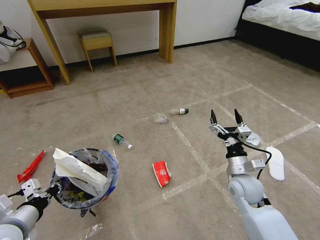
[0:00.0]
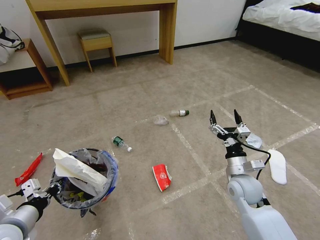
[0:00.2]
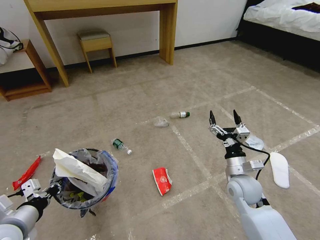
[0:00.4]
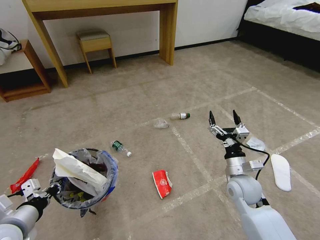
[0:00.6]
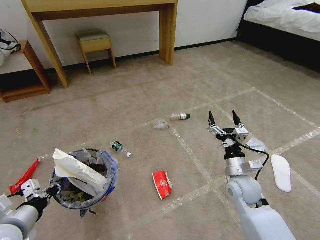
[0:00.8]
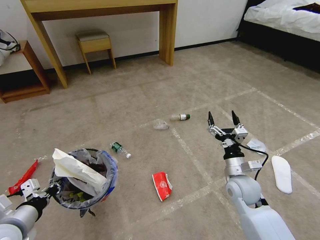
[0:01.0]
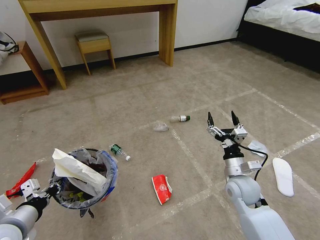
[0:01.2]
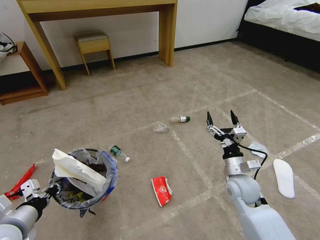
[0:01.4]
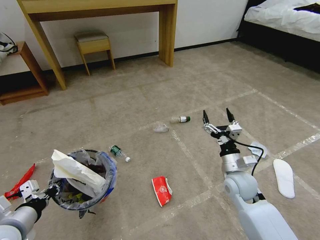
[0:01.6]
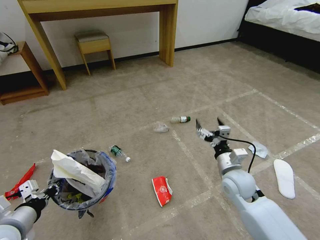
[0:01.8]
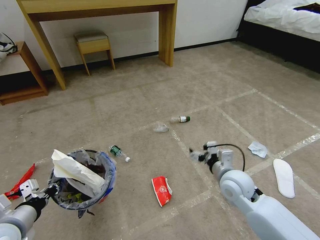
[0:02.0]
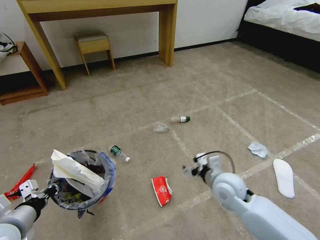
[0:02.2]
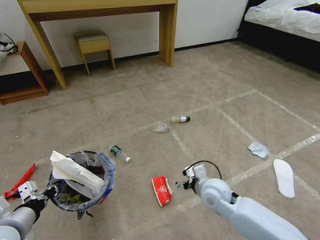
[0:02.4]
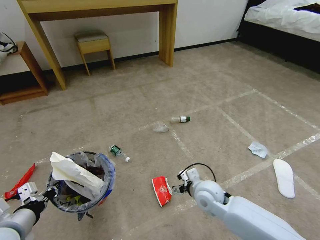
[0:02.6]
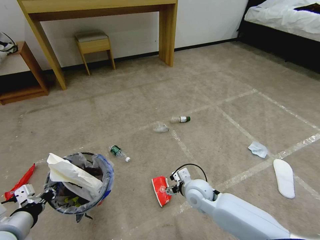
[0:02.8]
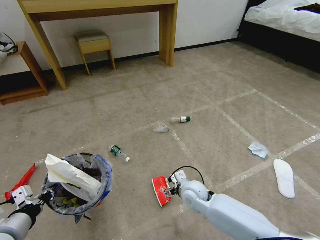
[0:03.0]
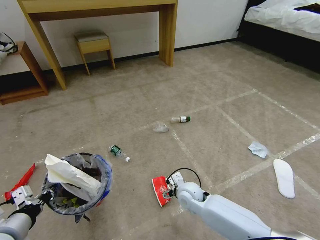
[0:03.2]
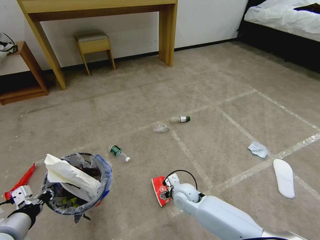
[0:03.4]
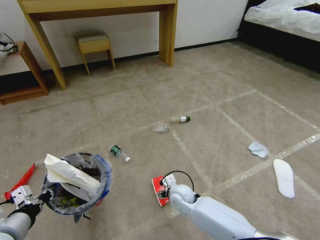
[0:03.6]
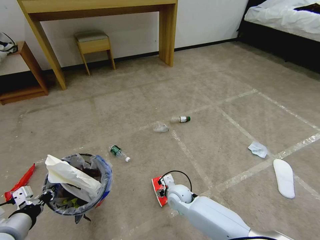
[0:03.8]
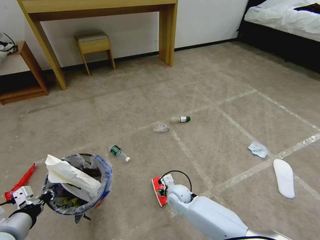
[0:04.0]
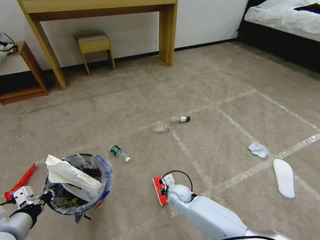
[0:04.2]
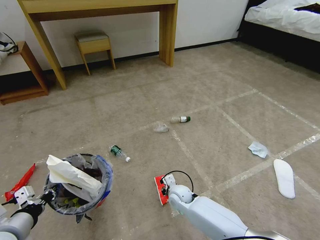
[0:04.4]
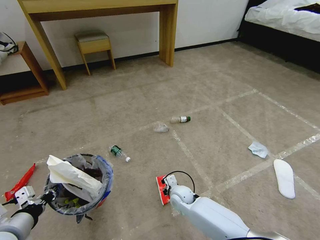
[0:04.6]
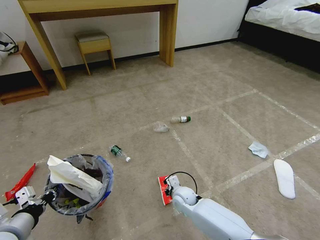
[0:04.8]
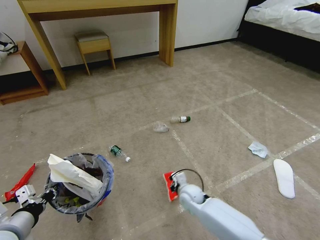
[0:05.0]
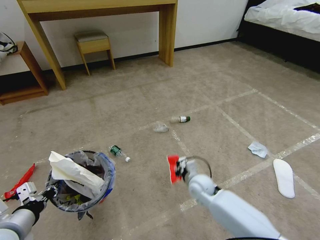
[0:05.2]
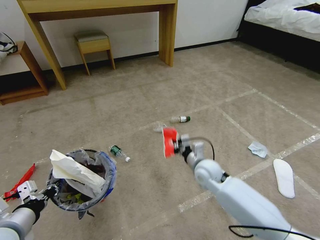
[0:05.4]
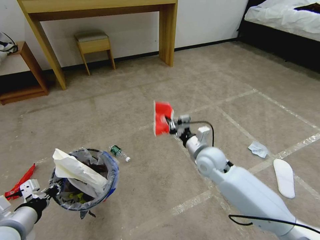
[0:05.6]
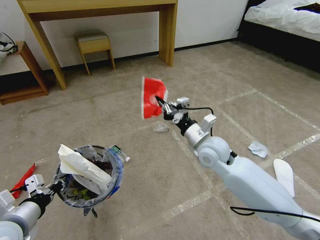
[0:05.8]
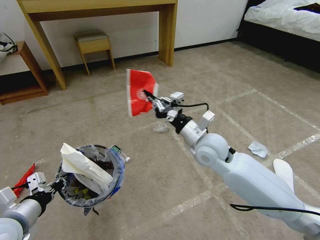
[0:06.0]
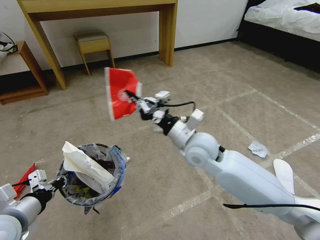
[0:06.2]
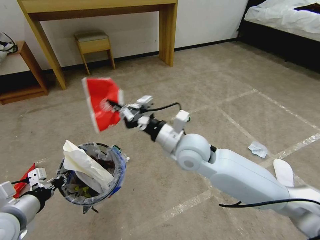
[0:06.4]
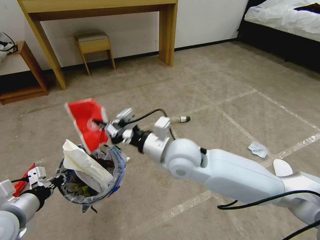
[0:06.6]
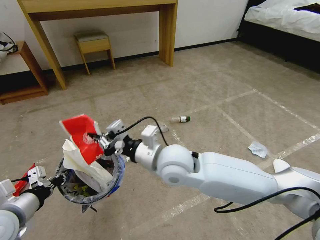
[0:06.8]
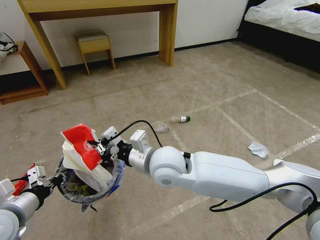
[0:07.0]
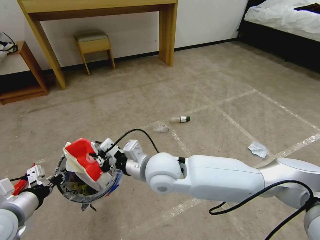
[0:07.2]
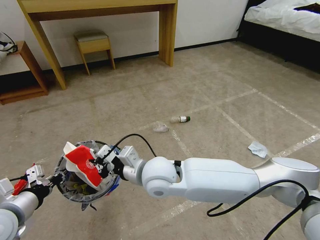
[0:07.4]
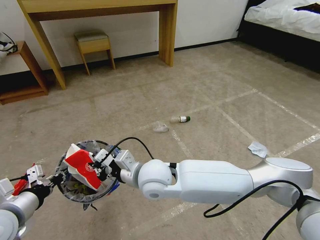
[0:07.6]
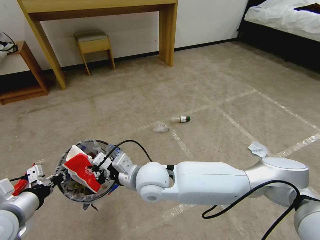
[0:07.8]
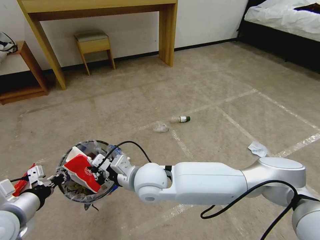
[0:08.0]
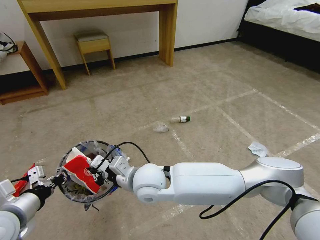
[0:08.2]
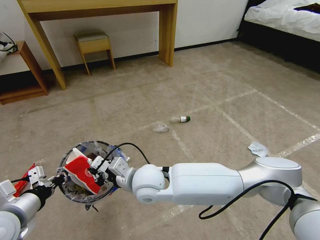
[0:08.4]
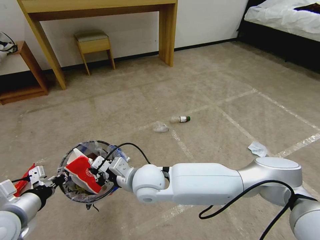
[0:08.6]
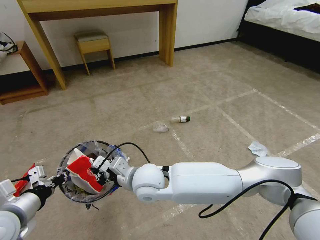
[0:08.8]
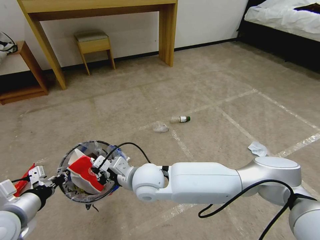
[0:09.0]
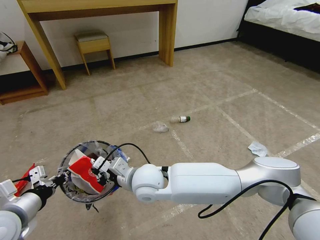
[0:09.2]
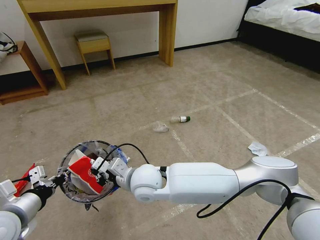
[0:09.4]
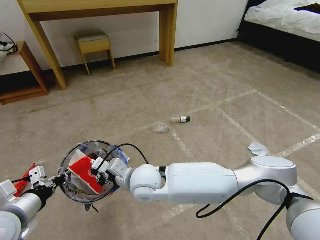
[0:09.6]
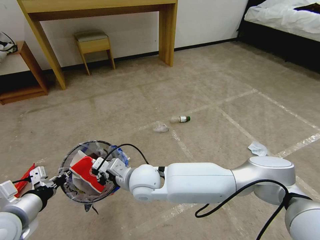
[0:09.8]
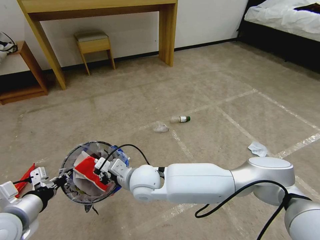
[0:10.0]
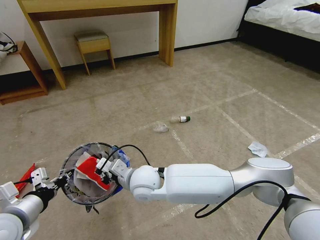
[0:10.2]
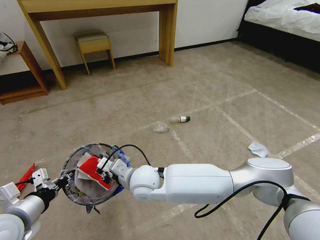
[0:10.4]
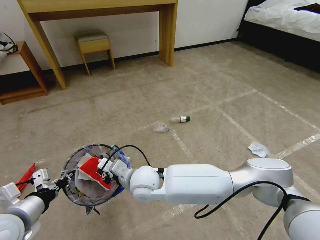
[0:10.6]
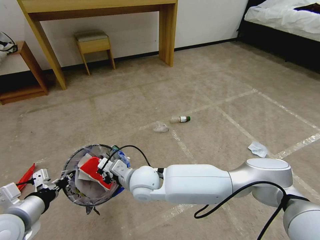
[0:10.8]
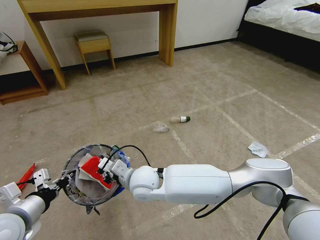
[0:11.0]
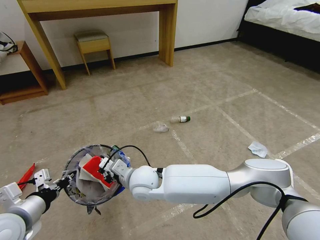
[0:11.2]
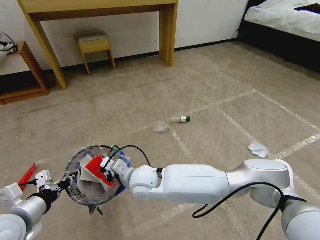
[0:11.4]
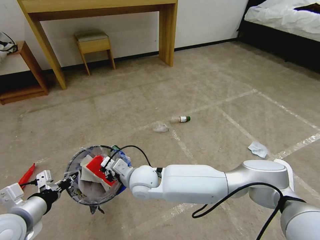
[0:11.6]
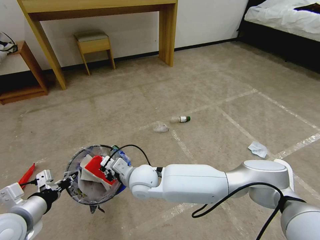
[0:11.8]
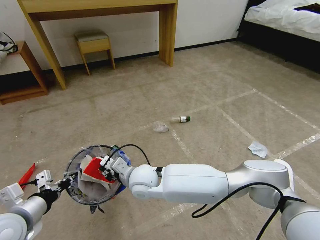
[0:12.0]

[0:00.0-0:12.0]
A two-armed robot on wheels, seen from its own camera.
Task of the whole recording: Pick up the trash bin and place the garbage on the floor into it.
0:00.0 to 0:01.6: The grippers move only a little.
0:01.6 to 0:03.0: The right gripper shifts roughly 15 cm to the left and downward.
0:03.0 to 0:04.4: The right gripper moves downward, roughly 10 cm, and closes its fingers.
0:04.4 to 0:06.0: The right gripper goes approximately 30 cm upward.
0:06.0 to 0:07.6: The right gripper moves to the left and backward, approximately 20 cm.
0:07.6 to 0:09.0: The grippers make only small movements.
0:09.0 to 0:12.0: The grippers move only a little.

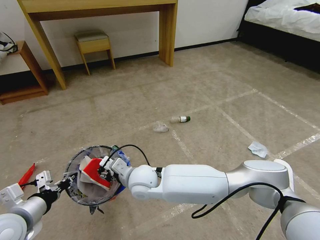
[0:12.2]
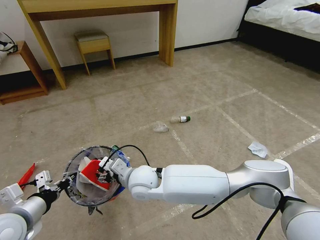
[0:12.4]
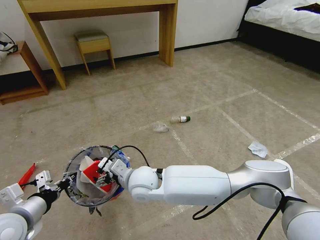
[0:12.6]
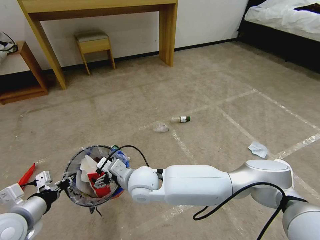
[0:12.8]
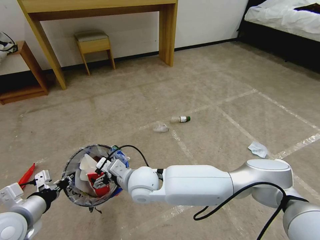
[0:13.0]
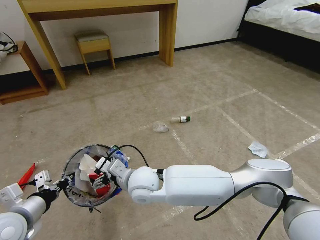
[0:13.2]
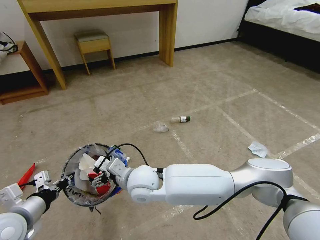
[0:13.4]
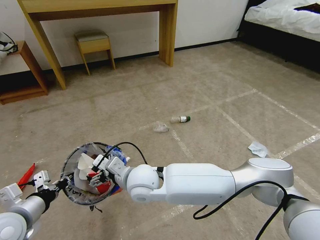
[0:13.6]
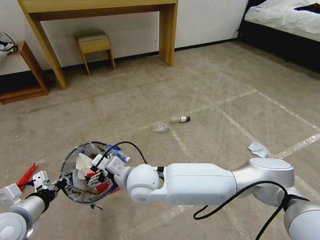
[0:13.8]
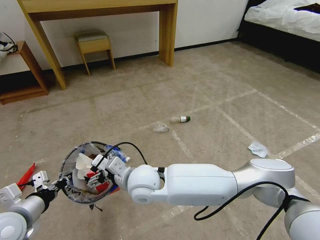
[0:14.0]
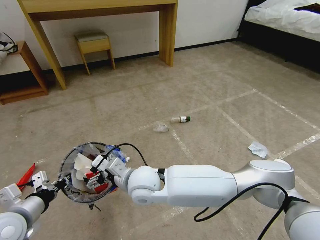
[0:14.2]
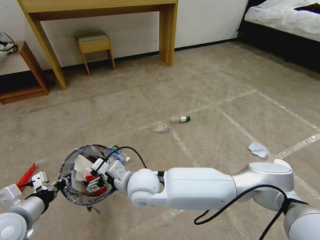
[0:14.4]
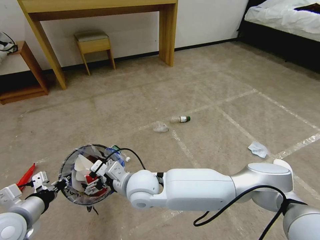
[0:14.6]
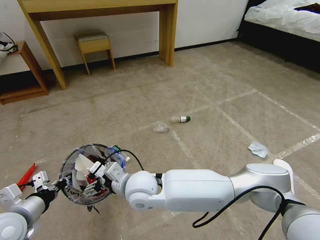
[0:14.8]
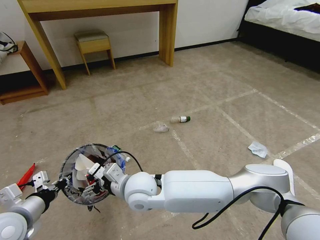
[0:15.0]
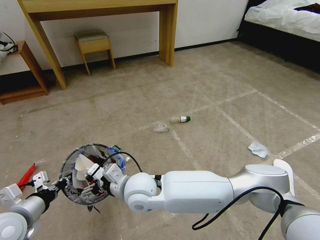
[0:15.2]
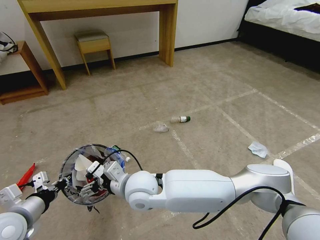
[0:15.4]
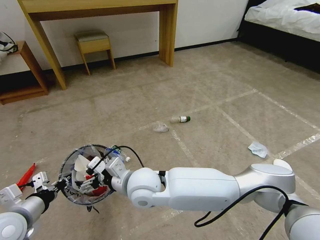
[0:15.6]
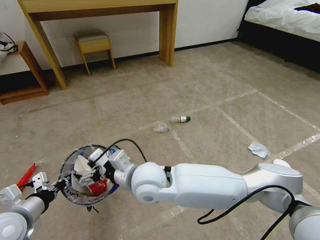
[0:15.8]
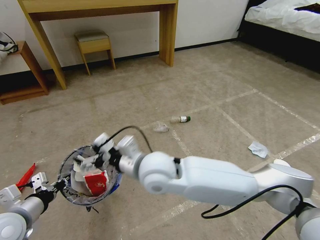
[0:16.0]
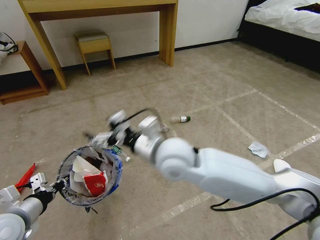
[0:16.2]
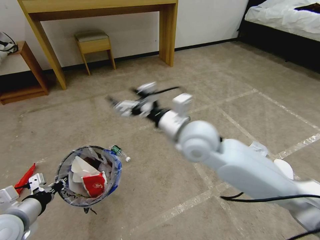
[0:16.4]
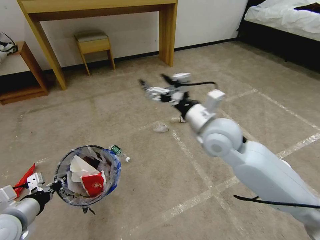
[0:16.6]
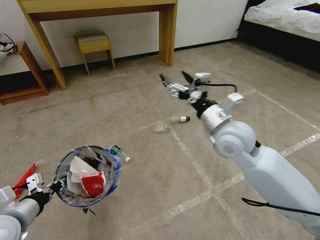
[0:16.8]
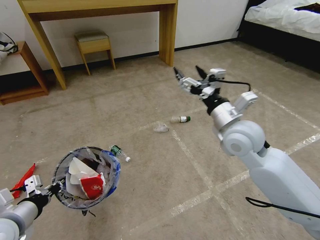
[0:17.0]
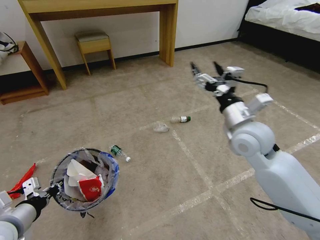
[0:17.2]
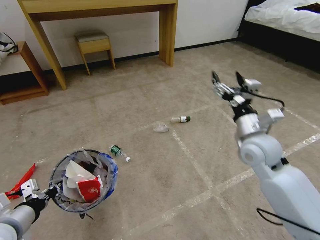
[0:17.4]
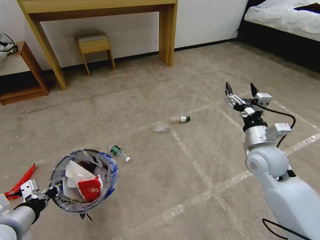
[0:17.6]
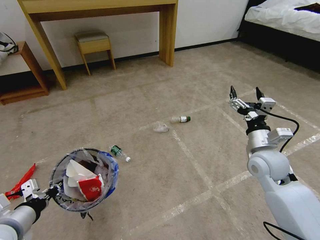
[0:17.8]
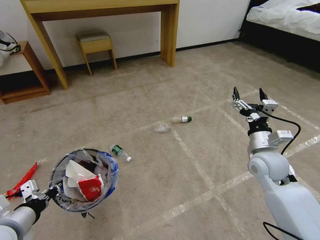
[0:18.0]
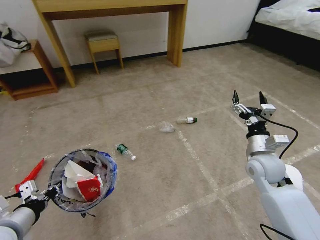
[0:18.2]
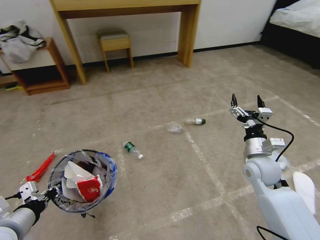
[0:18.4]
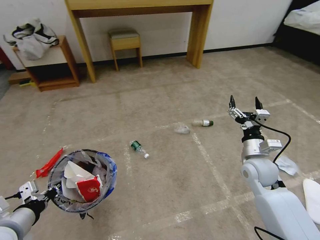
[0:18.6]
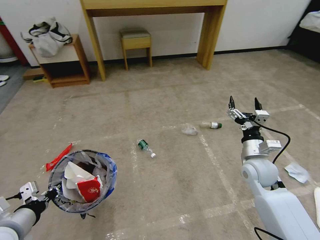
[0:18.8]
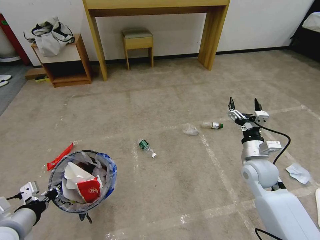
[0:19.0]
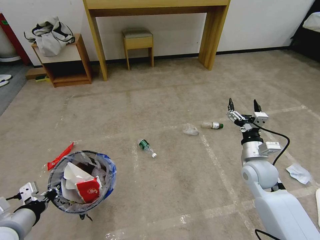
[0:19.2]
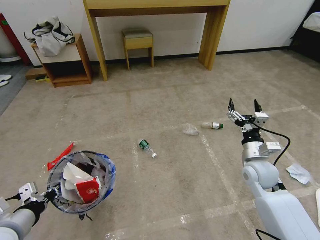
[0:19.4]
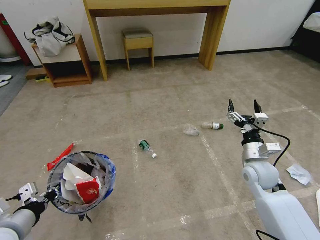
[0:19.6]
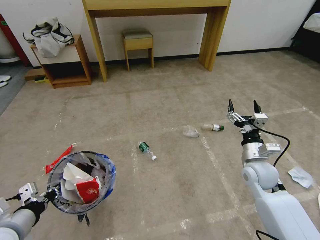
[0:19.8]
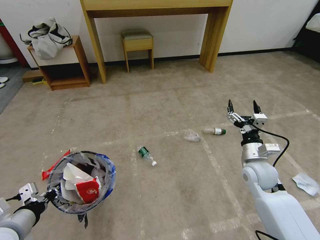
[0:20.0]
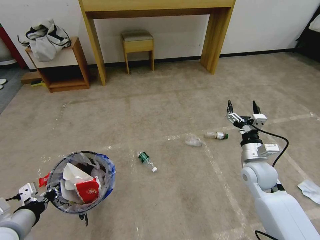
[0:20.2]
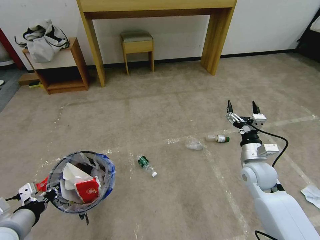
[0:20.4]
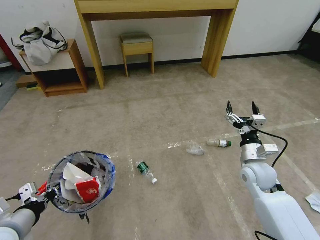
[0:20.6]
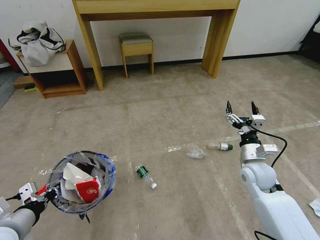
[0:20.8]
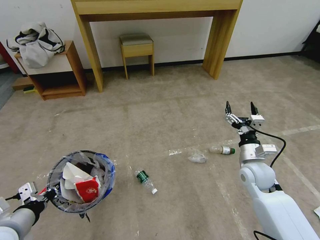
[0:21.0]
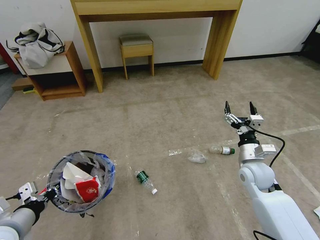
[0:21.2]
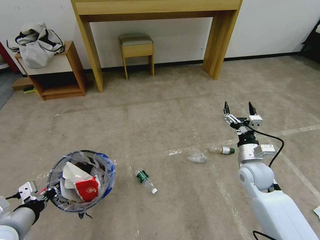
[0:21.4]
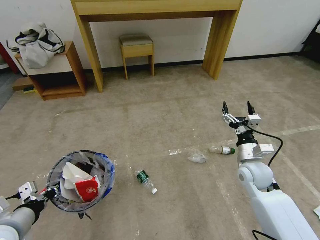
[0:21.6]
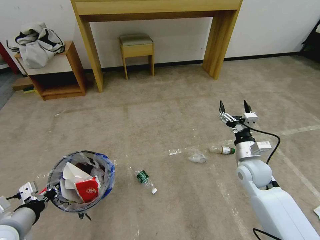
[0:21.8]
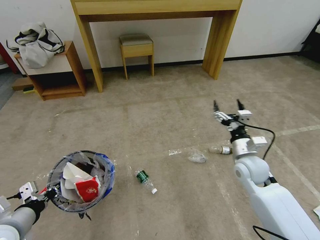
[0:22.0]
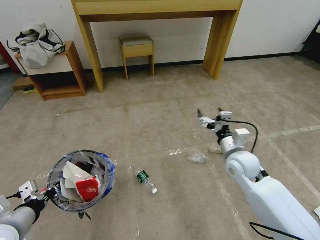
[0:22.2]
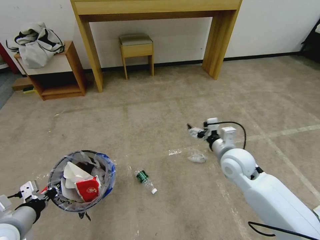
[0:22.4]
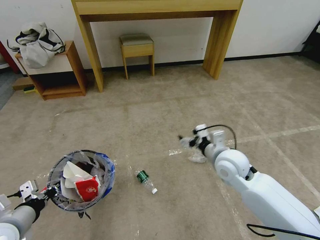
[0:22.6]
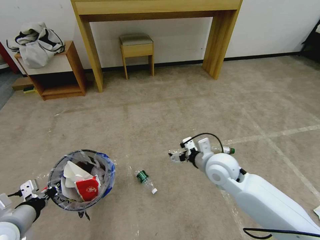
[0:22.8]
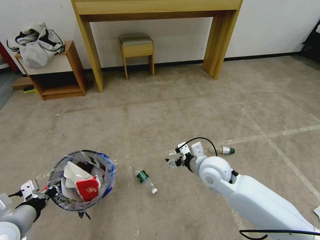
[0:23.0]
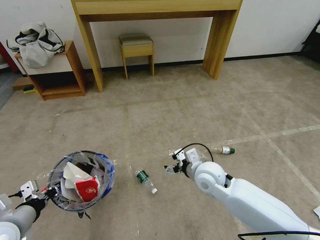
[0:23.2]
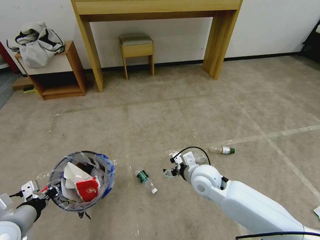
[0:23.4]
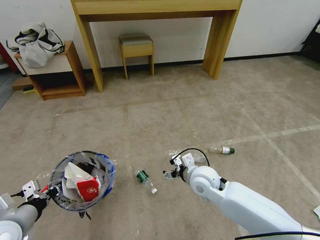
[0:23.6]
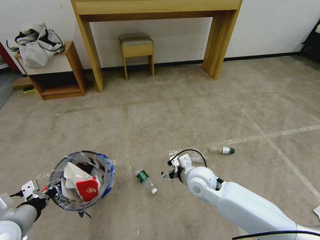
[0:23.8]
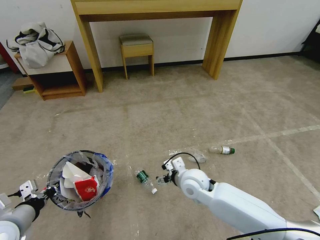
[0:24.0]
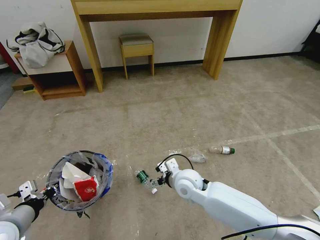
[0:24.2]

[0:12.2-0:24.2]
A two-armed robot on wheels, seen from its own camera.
Task of the whole recording: Pick up the trash bin and place the garbage on the floor into it.
0:12.2 to 0:13.8: The right gripper ends up about 5 cm from where it was, and opens.
0:13.8 to 0:15.2: The grippers make only small movements.
0:15.2 to 0:16.6: The right gripper shifts roughly 25 cm to the right and upward.
0:16.6 to 0:18.2: The right gripper heads to the right and downward, covering approximately 20 cm.
0:21.2 to 0:22.6: The right gripper travels to the left and upward by about 10 cm.
0:22.6 to 0:24.2: The right gripper goes some 15 cm to the left and downward.
